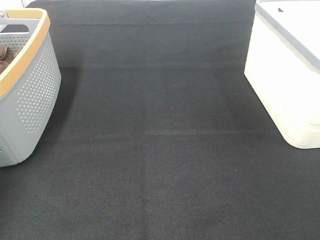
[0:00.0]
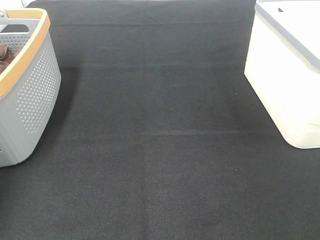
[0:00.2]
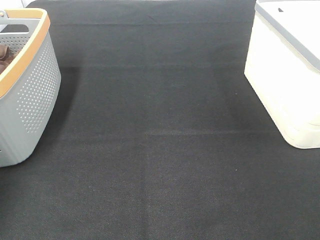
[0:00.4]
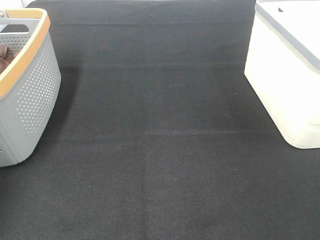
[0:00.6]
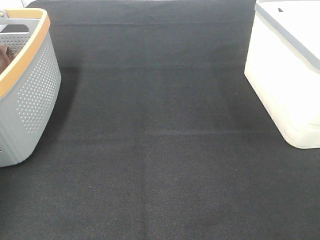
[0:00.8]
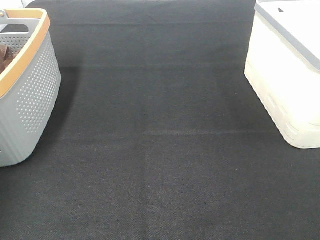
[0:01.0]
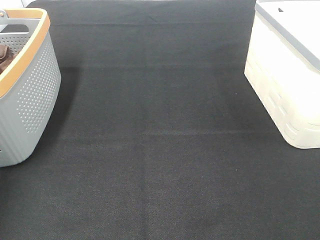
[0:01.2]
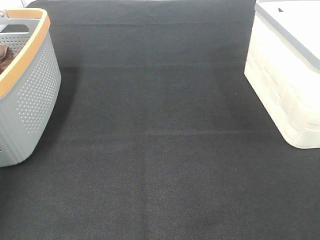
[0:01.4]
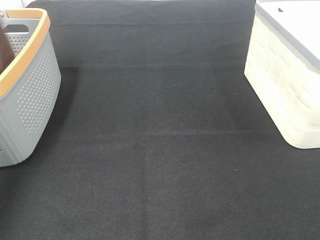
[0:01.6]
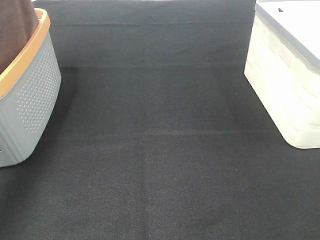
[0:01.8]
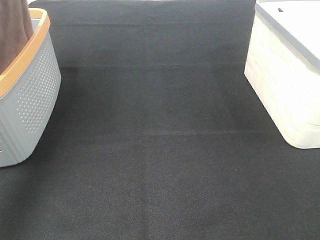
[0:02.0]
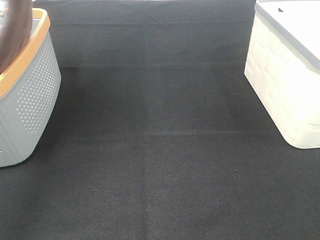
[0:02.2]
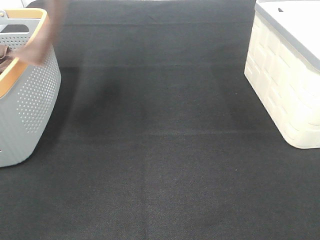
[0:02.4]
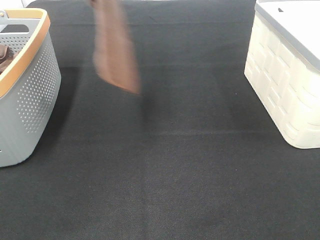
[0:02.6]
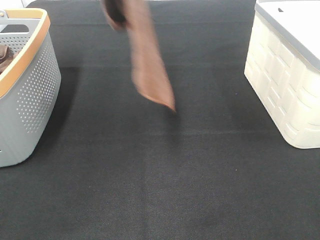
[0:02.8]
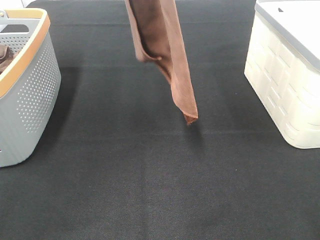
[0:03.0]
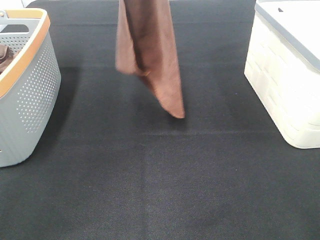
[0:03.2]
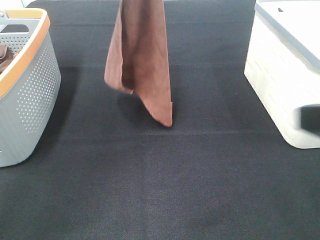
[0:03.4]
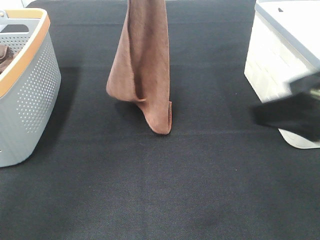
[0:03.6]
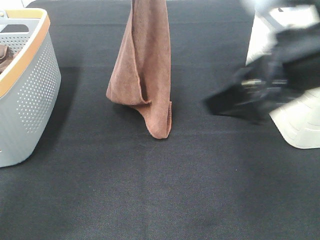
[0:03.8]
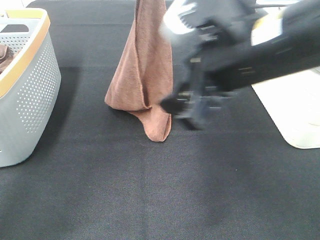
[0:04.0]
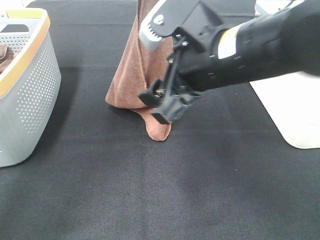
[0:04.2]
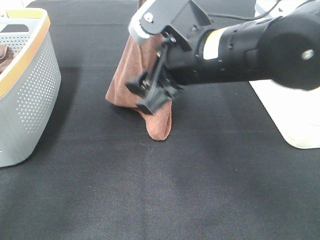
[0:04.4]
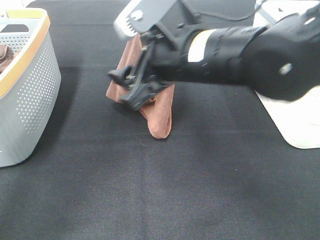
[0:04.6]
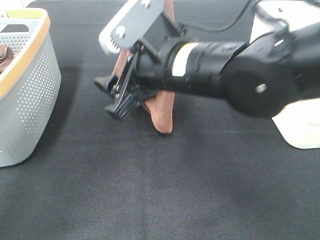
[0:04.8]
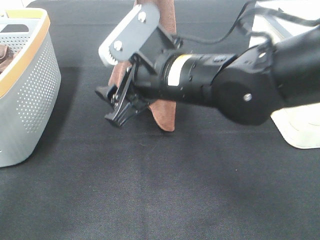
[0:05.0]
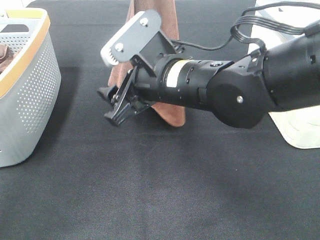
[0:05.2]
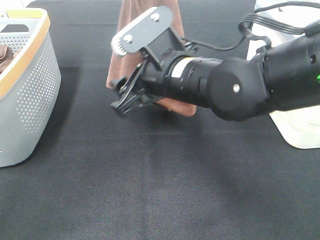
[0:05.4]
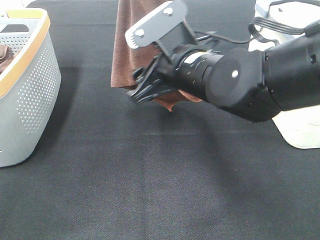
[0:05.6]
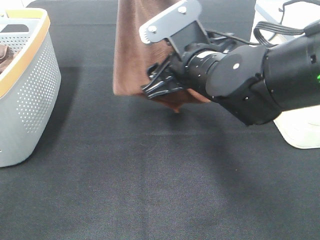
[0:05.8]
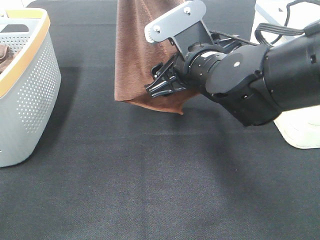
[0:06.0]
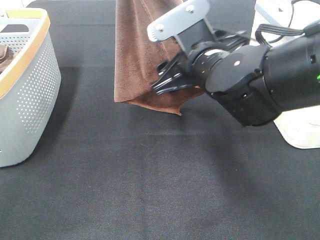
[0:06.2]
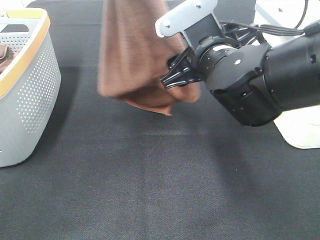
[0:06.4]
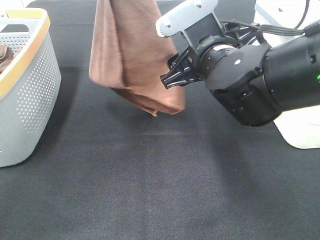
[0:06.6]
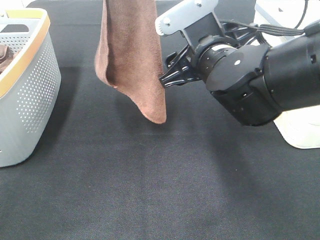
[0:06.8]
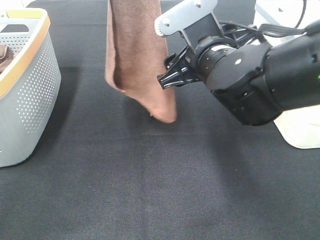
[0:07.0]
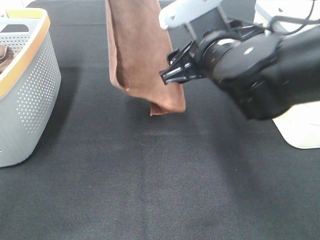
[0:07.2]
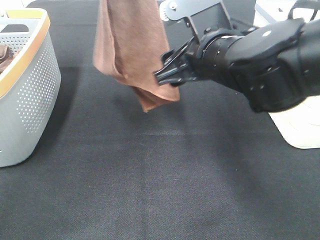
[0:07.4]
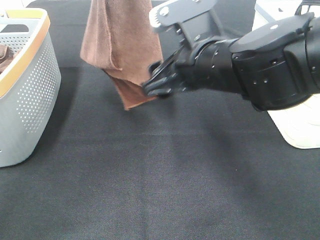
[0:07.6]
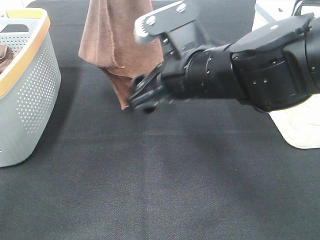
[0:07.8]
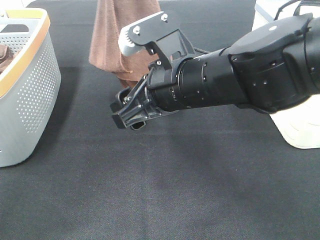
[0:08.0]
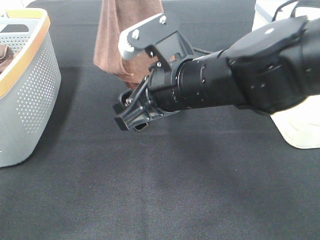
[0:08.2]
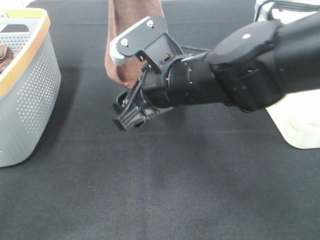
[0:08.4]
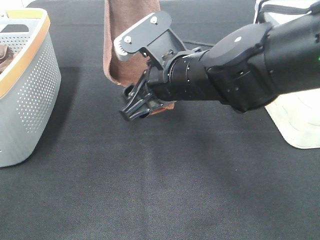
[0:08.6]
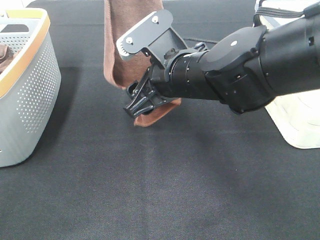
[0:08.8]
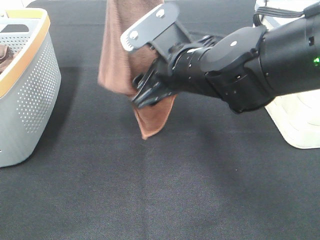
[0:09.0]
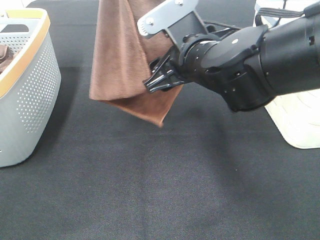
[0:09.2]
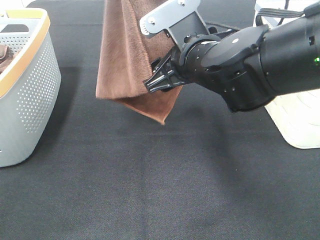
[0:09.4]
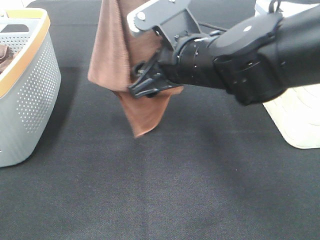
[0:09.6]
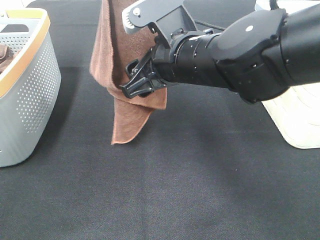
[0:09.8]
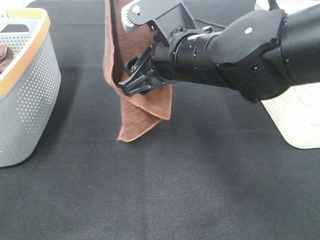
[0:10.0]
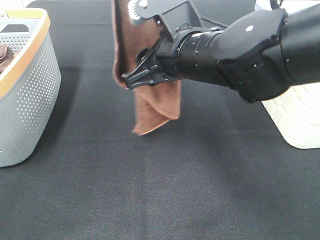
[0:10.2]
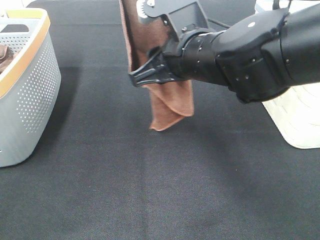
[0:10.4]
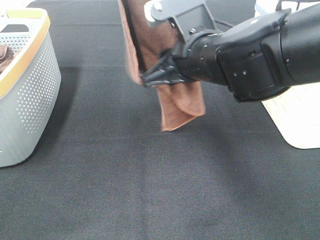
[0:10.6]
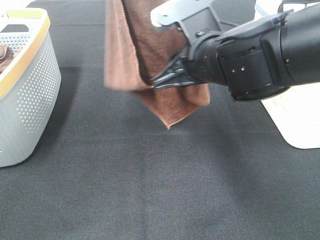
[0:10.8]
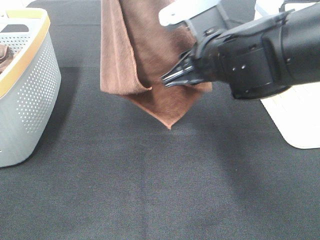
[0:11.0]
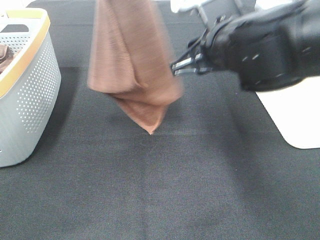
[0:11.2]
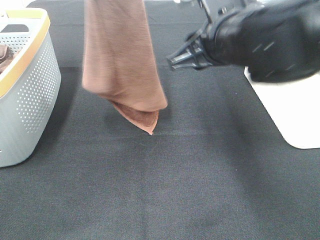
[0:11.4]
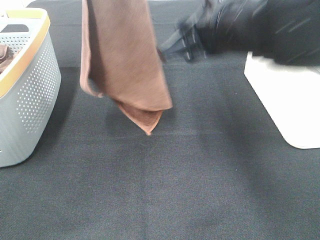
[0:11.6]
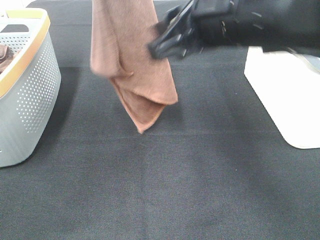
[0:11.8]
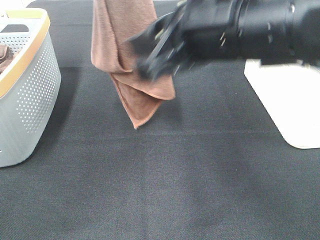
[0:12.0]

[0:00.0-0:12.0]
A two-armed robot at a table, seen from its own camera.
Task of the whole recording: Remove the towel and place it.
Step, 0:01.0 to 0:12.0: Right hand: grab a corner of the brown towel and straighten it.
0:01.6 to 0:03.0: The left gripper moves to the right, some 20 cm. The right gripper ends up approximately 5 cm from where it was.
0:03.0 to 0:04.4: The left gripper shifts about 10 cm downward; the right gripper moves forward and to the left, roughly 30 cm.
0:04.4 to 0:06.0: The right gripper moves roughly 5 cm, while the left gripper heads upward and backward, covering about 10 cm.
0:07.6 to 0:09.0: The left gripper moves some 5 cm.
0:09.0 to 0:10.4: The right gripper closes its fingers.
0:10.4 to 0:12.0: The right gripper is displaced backward and upward by roughly 10 cm.

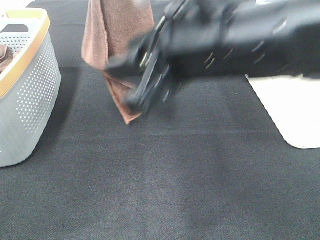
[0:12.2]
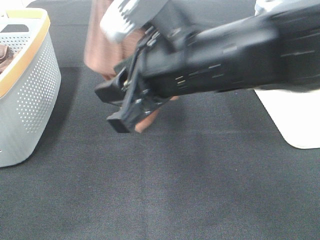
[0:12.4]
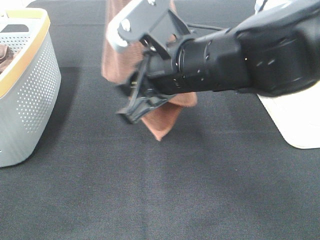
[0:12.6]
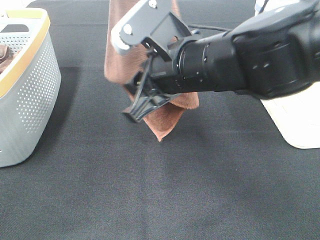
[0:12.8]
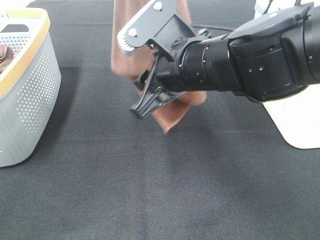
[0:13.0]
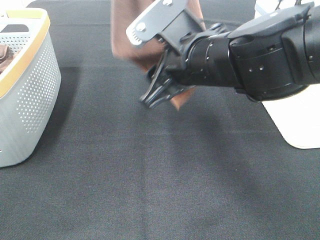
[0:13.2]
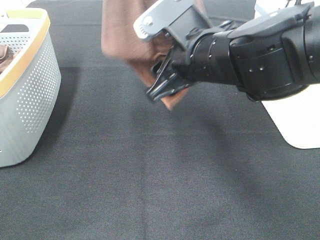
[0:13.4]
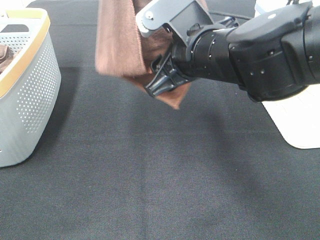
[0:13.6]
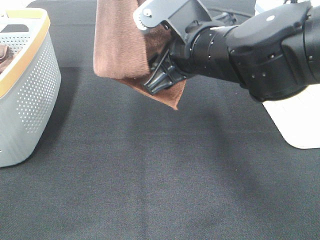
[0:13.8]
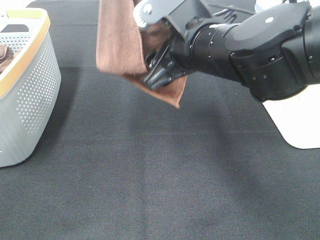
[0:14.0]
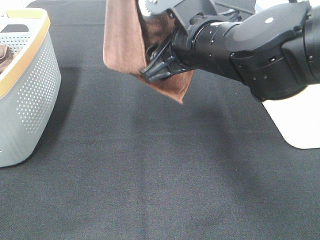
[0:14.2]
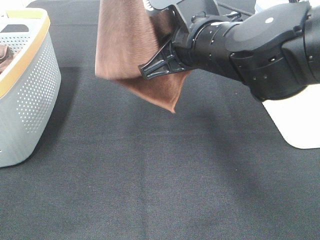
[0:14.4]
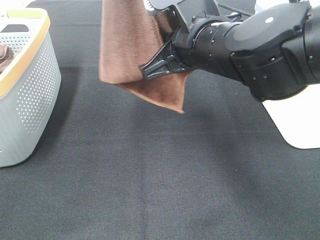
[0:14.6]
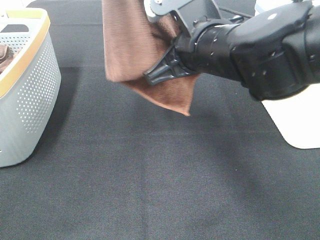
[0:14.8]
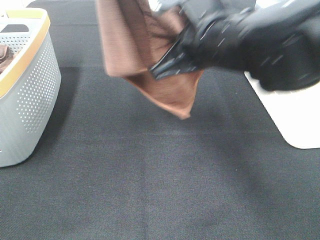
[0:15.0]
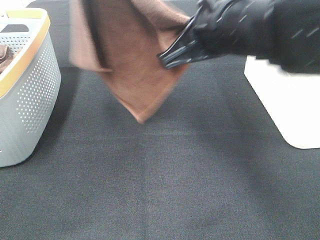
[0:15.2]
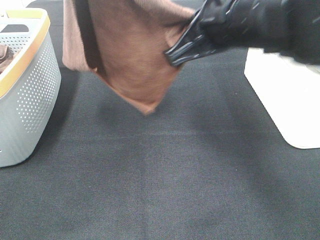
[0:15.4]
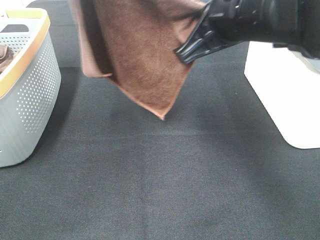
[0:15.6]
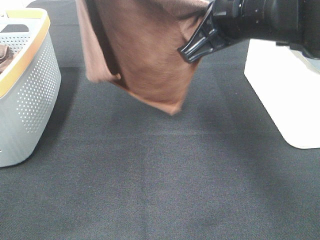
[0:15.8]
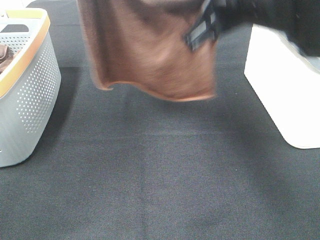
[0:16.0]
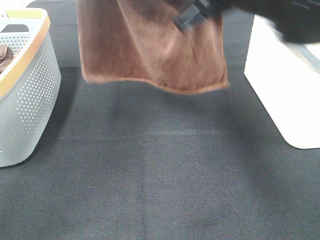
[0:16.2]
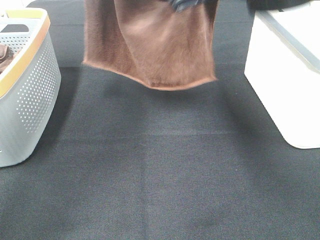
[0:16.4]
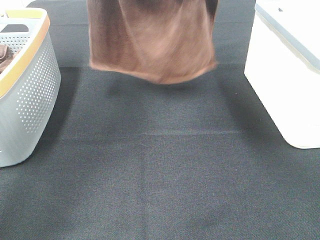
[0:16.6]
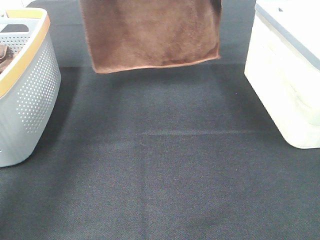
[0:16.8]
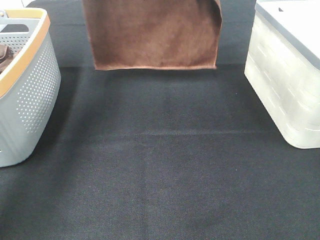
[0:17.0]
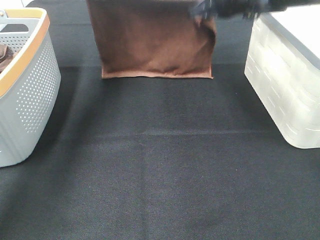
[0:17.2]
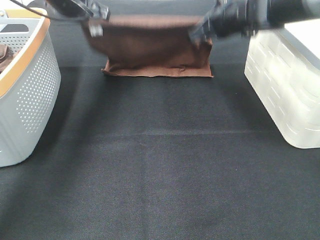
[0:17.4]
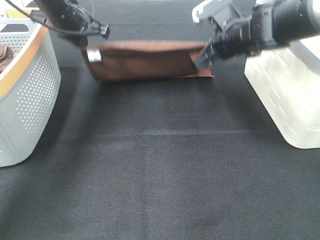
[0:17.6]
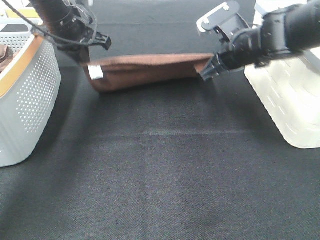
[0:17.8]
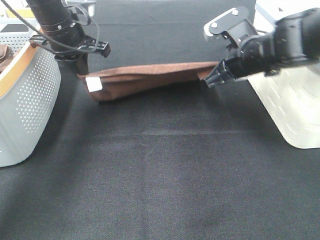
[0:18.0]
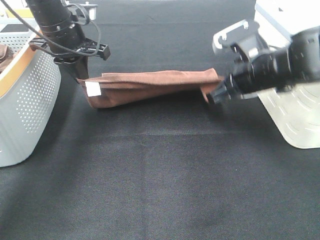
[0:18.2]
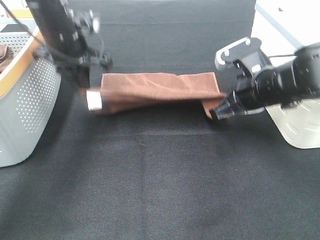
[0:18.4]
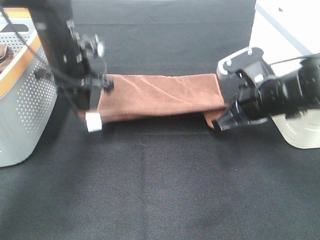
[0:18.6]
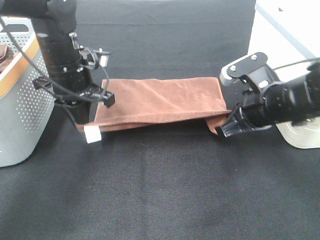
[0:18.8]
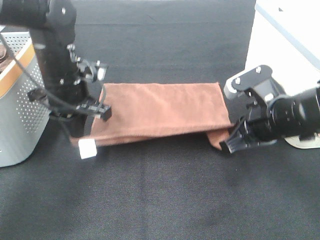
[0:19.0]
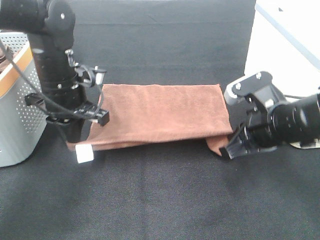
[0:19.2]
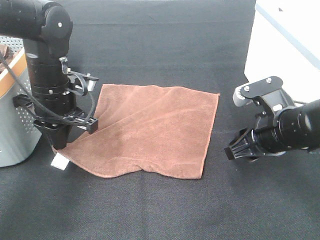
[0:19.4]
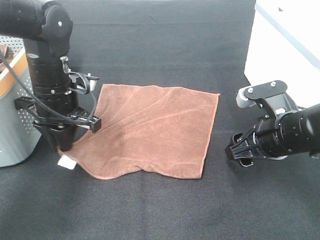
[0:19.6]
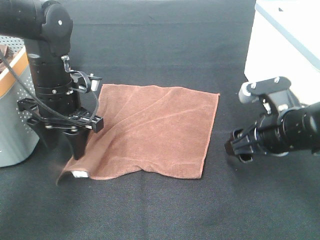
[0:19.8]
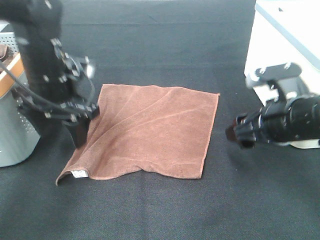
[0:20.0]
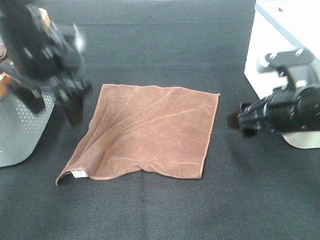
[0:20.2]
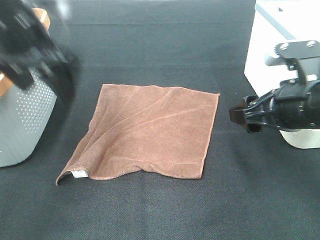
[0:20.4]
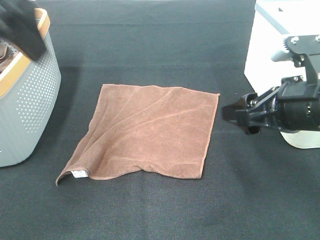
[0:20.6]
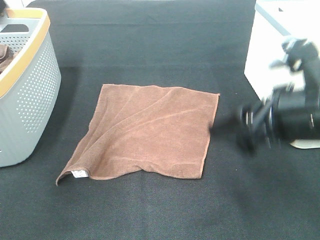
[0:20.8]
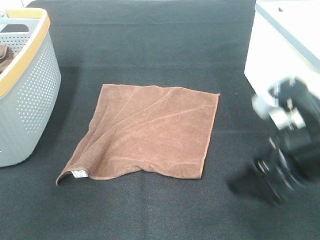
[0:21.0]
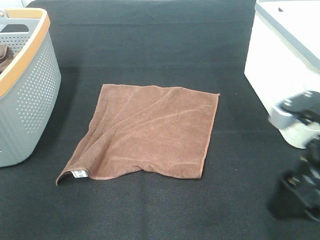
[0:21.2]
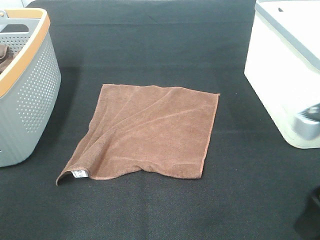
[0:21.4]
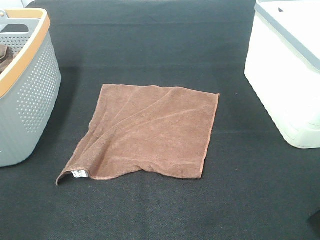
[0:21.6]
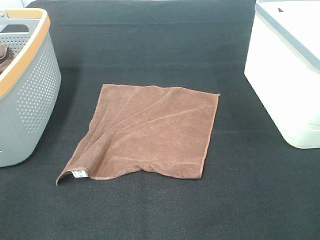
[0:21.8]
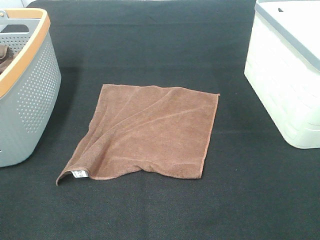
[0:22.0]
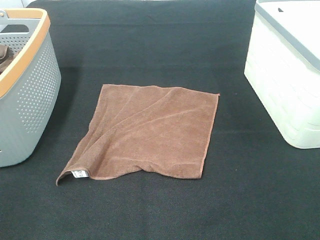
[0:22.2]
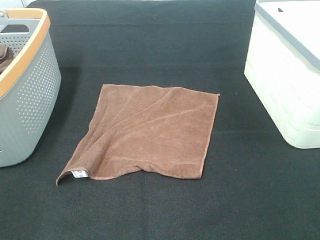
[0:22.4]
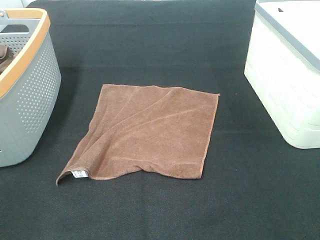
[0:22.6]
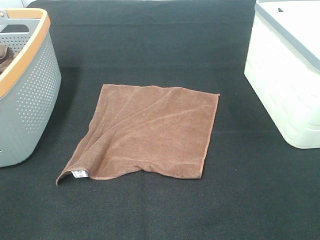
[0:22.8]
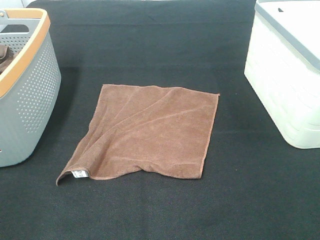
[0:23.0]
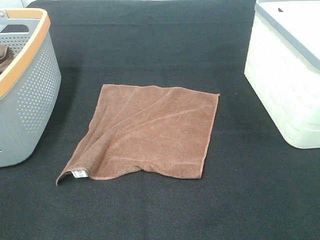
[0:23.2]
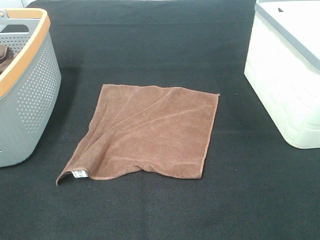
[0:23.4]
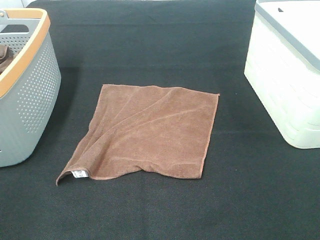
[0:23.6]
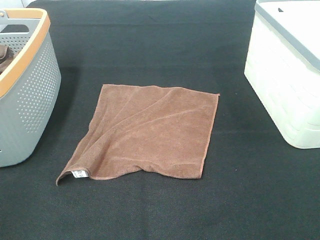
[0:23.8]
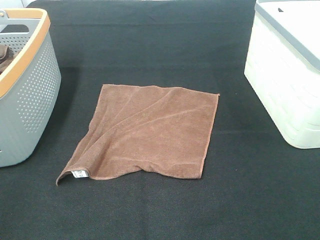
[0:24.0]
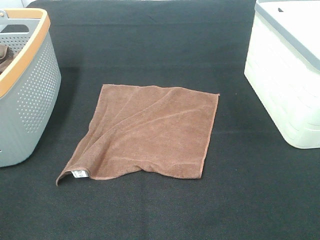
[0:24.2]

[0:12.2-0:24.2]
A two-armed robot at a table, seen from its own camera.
Task of the whole recording: Remove the towel and place it.
Step, 0:12.2 to 0:13.8: Right hand: spread the brown towel flat on the table.
Step, 0:12.2 to 0:14.4: Left hand: spread the brown towel flat on the table.
0:12.2 to 0:13.8: The right gripper moves forward, some 5 cm, and opens.
0:13.8 to 0:15.2: The right gripper moves some 5 cm, and closes up.
0:15.2 to 0:16.6: The right gripper is displaced forward by approximately 15 cm. Meanwhile the left gripper moves forward and downward, some 15 cm.
0:16.6 to 0:18.2: Both grippers travel together downward, approximately 15 cm.
0:18.2 to 0:19.8: The left gripper is displaced backward and downward by some 10 cm, and opens; the right gripper is displaced backward by about 10 cm, and opens up.
0:19.8 to 0:21.2: The left gripper heads upward, backward and to the left, covering roughly 35 cm. Meanwhile the right gripper is displaced backward and upward by about 10 cm.
0:21.2 to 0:22.6: The right gripper shifts some 20 cm backward, upward and to the right.
